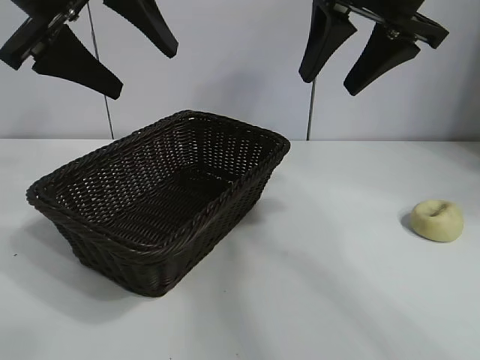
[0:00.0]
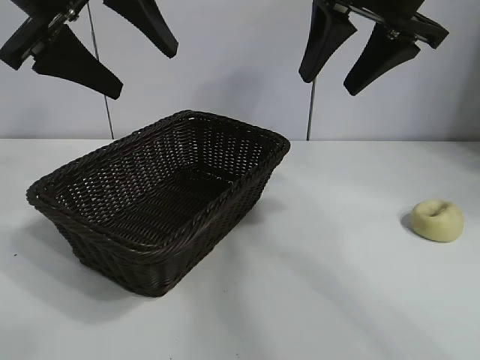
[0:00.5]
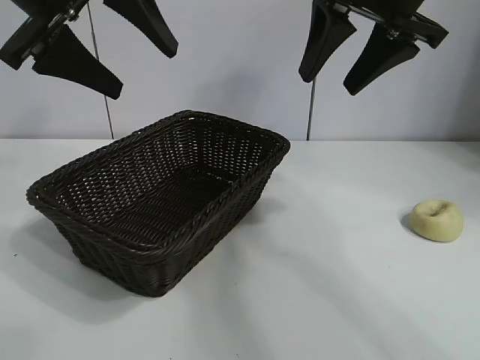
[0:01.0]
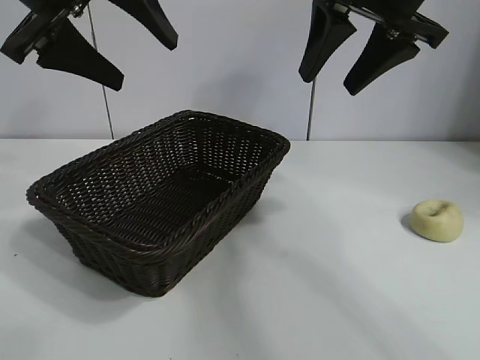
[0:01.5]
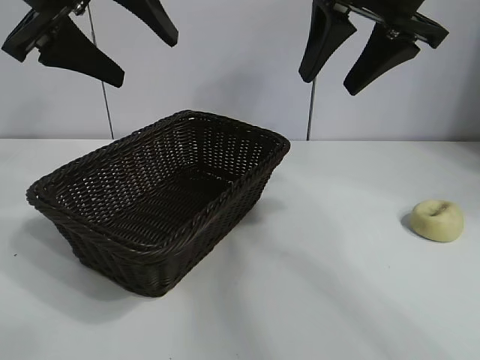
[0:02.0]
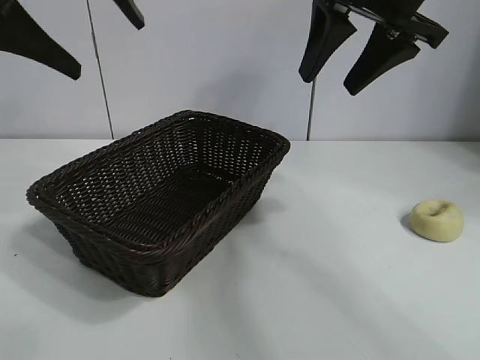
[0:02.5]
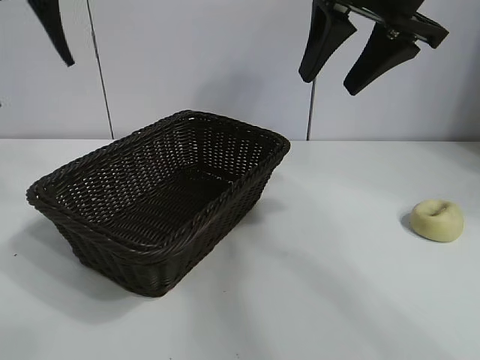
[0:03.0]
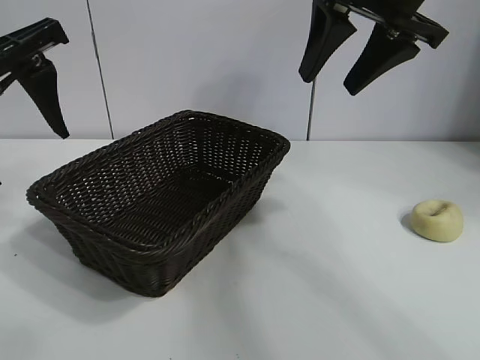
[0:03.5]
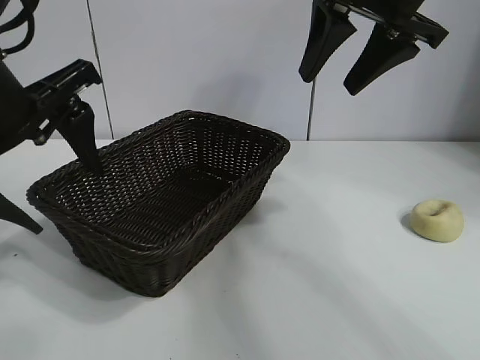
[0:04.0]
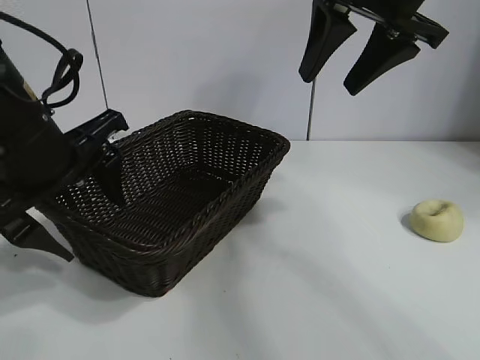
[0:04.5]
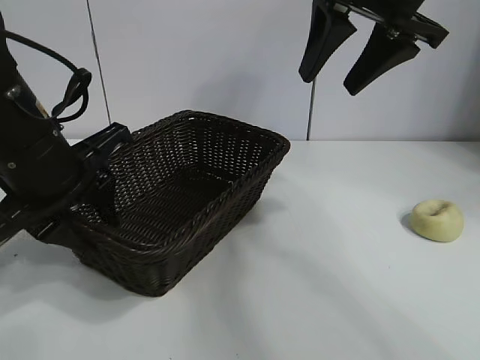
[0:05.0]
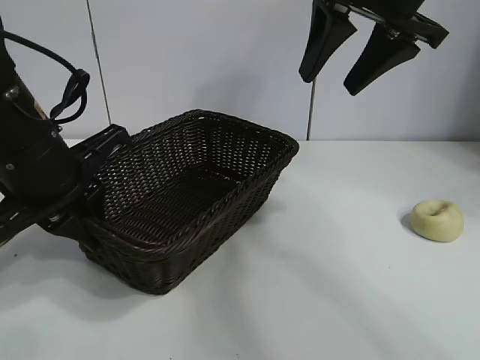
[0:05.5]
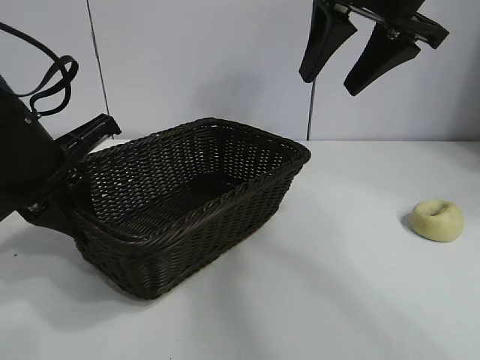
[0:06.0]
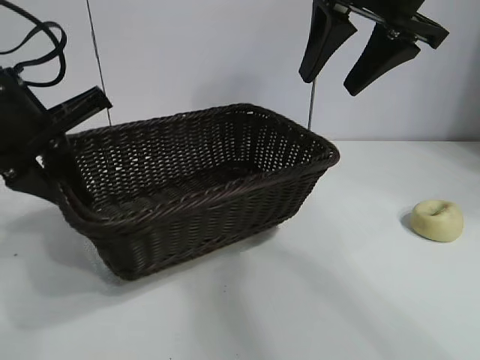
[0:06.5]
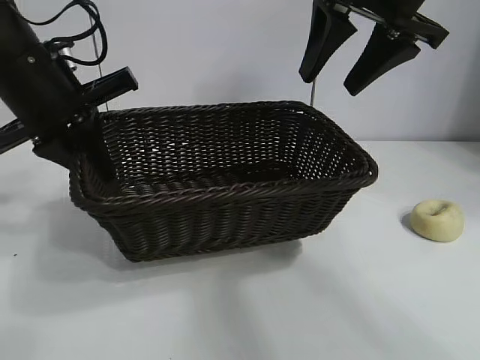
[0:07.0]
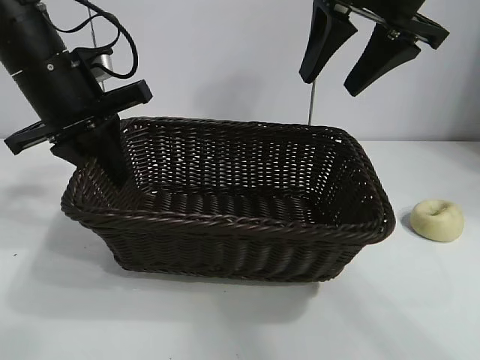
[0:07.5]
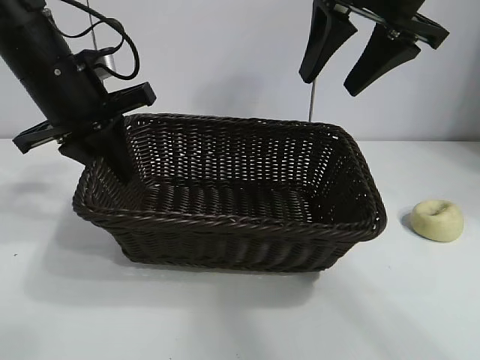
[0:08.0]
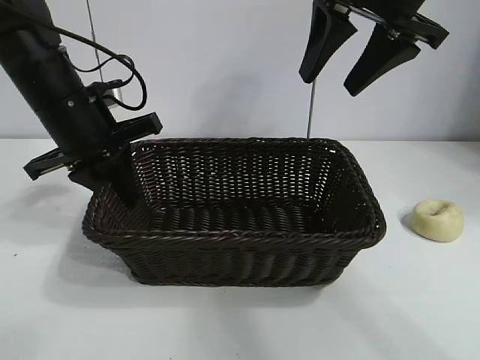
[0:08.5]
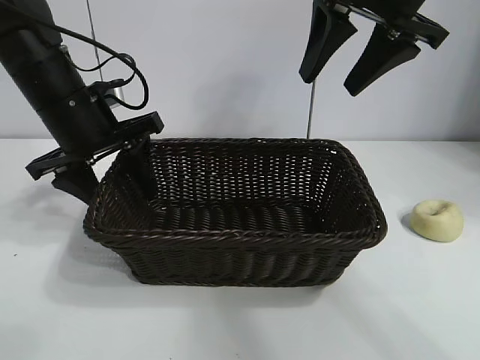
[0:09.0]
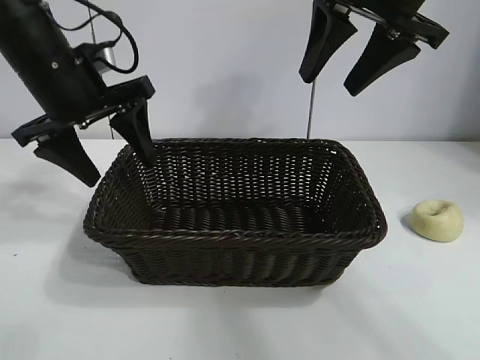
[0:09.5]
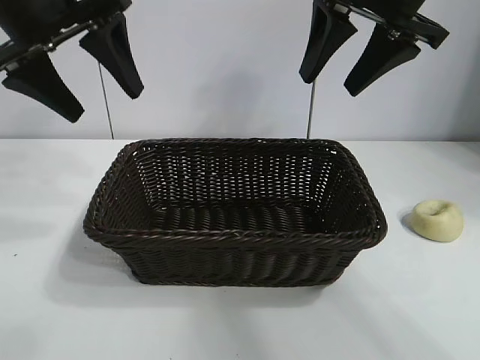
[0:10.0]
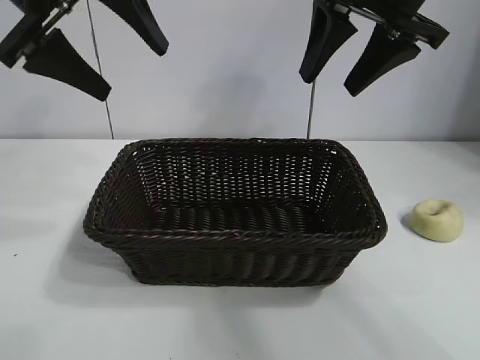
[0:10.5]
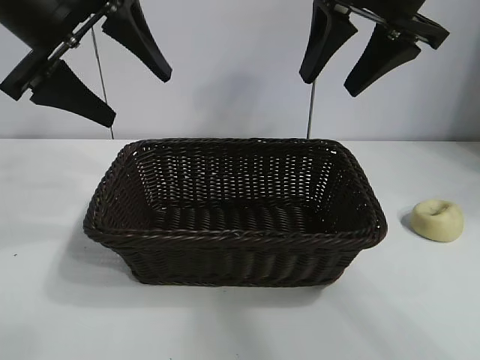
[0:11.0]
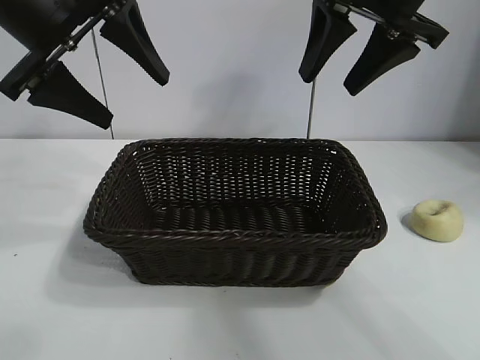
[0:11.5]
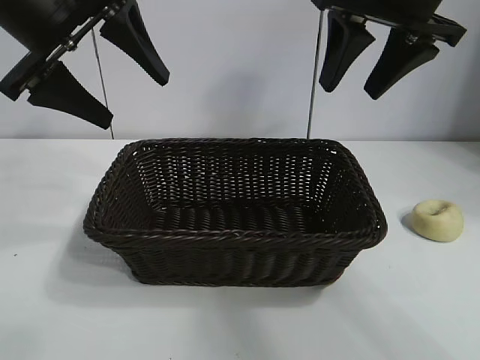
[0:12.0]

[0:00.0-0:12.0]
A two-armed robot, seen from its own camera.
Task of the whole recording: pick up the egg yolk pastry and put it into the basket.
Step, 0:01.5 to 0:05.0: Grasp the basket with left gripper.
Step, 0:05.5 to 0:08.5: Place the basket in the center of view with left gripper.

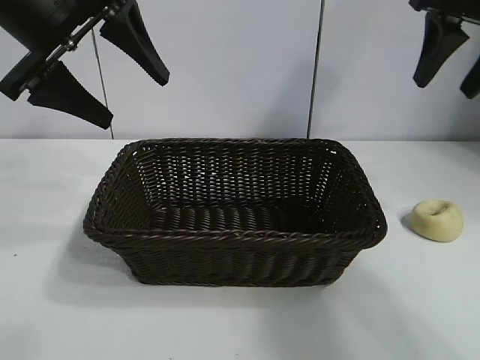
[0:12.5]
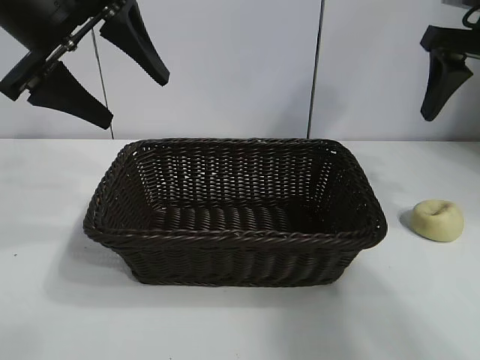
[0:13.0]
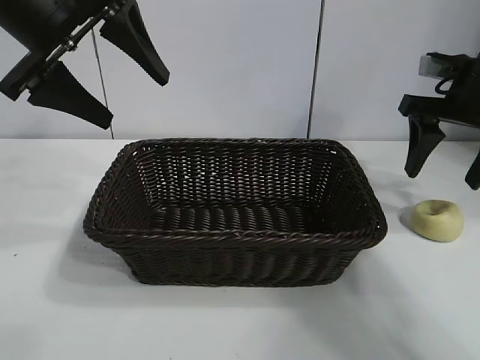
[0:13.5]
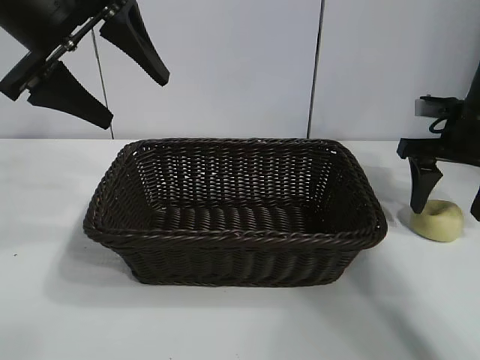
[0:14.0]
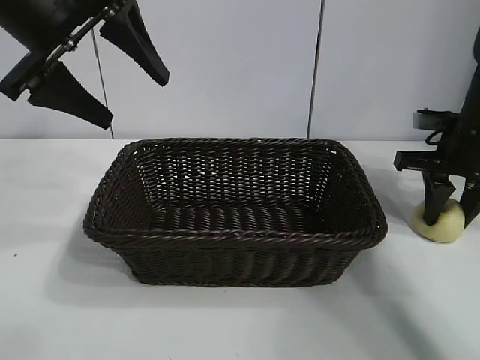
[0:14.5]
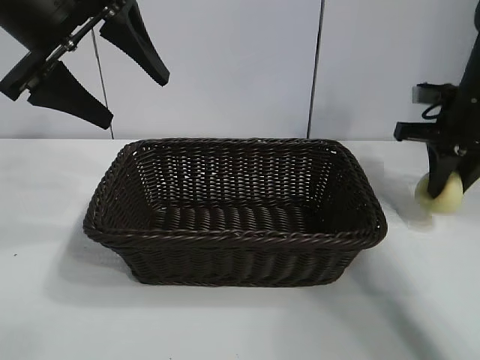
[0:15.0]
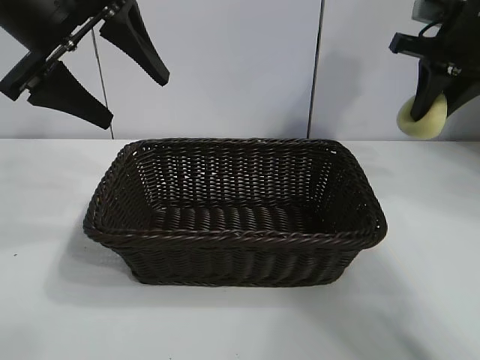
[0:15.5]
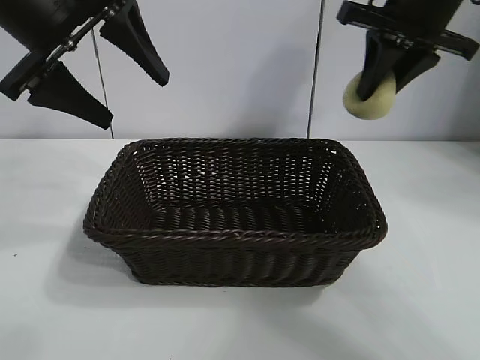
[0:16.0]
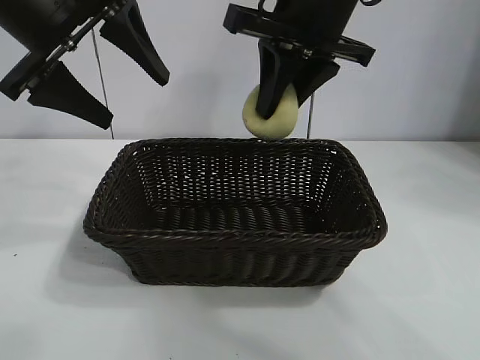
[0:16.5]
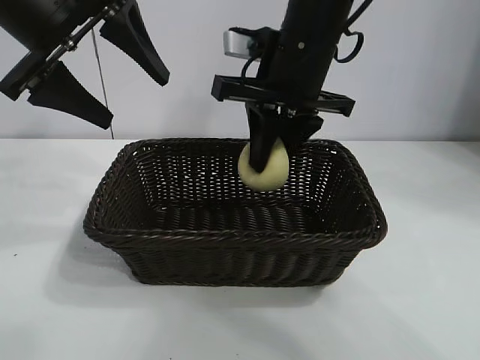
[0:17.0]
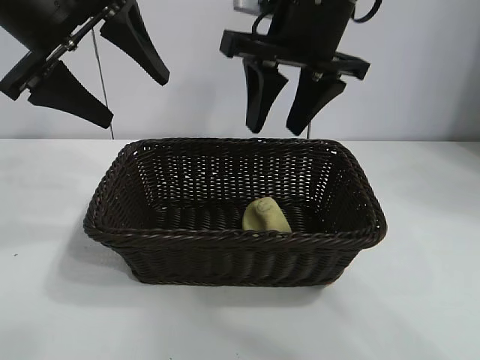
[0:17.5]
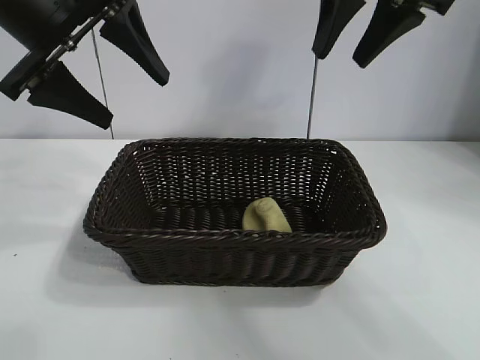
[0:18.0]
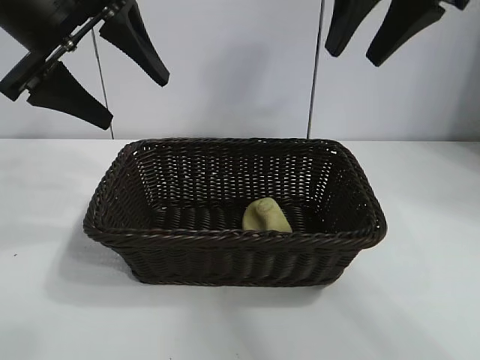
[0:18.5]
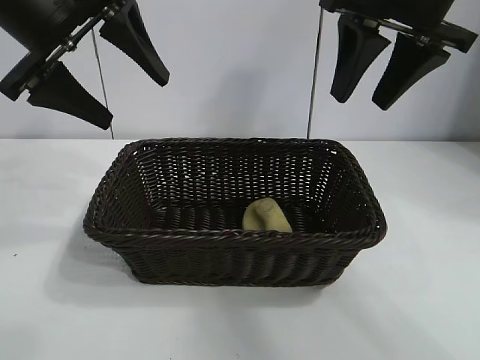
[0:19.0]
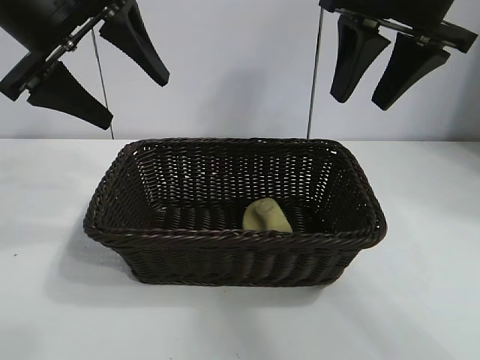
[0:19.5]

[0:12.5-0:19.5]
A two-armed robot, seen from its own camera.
Task of the whole recording: pick up the egg yolk pastry and put it into the basket.
Step, 0:12.5 to 0:14.5: Grasp egg yolk pastry with right gripper.
Step, 0:15.0 to 0:17.0: Place the egg yolk pastry in the basket with right gripper.

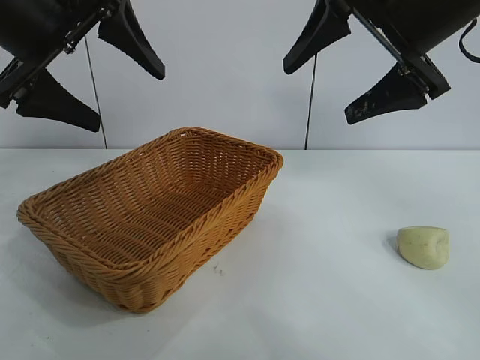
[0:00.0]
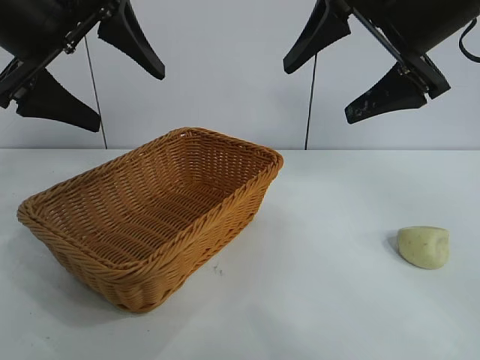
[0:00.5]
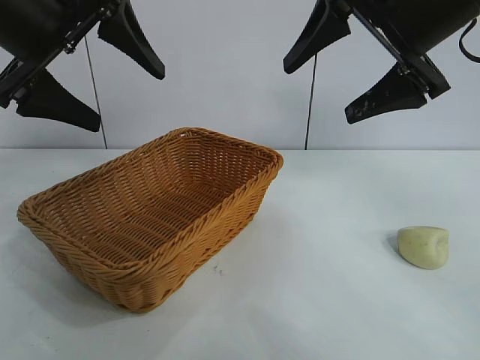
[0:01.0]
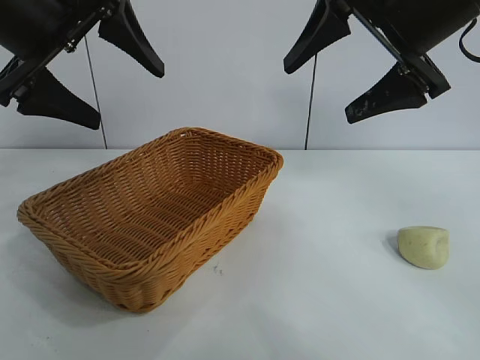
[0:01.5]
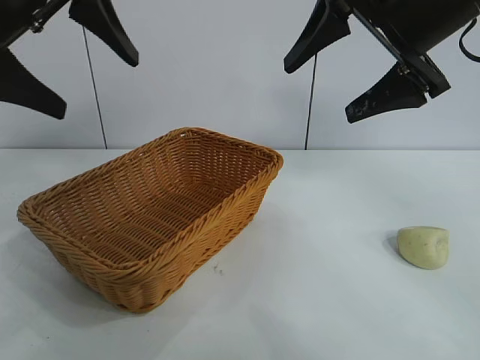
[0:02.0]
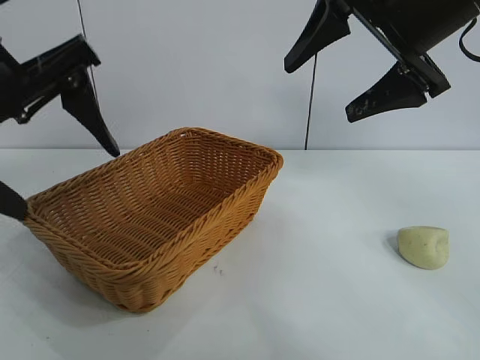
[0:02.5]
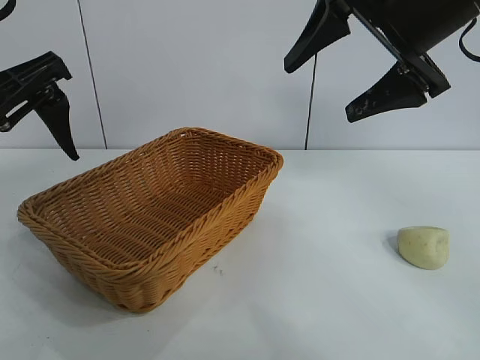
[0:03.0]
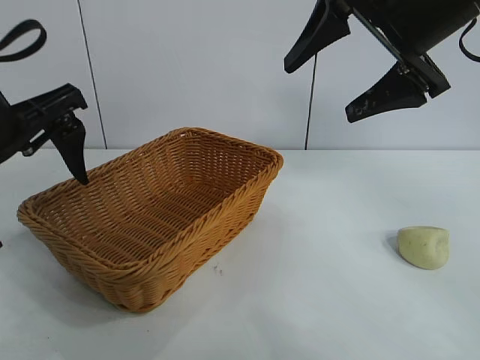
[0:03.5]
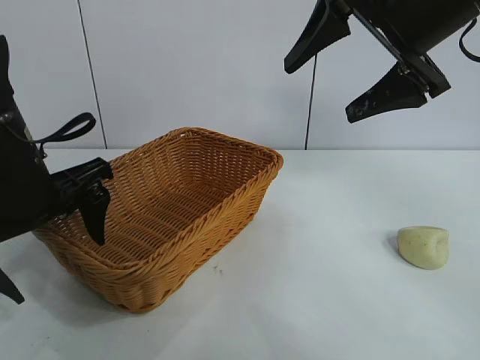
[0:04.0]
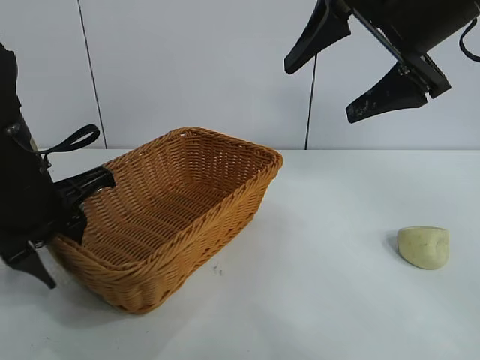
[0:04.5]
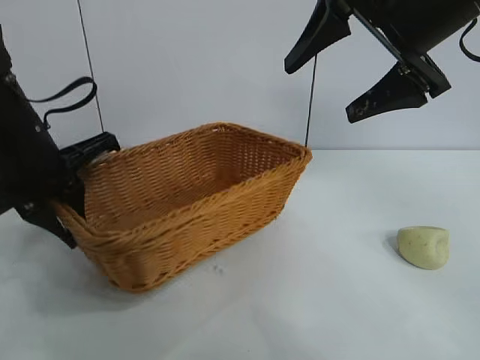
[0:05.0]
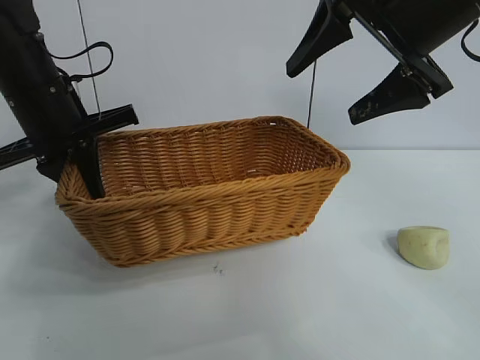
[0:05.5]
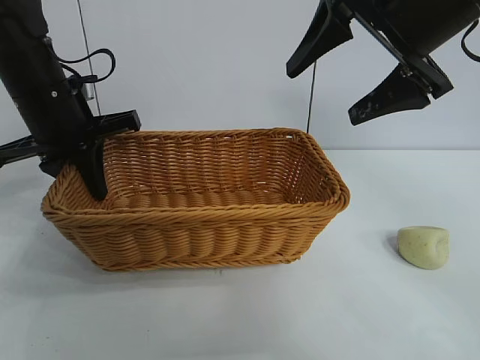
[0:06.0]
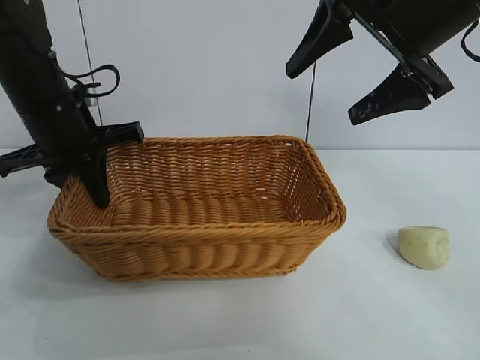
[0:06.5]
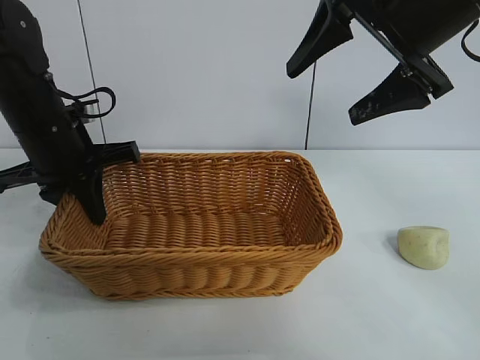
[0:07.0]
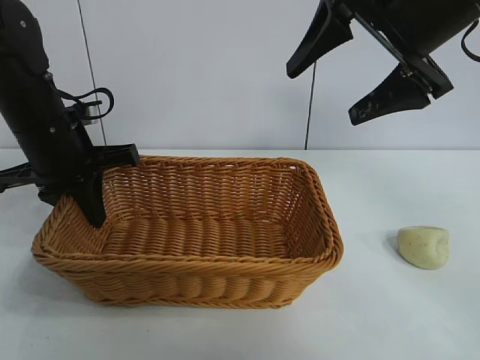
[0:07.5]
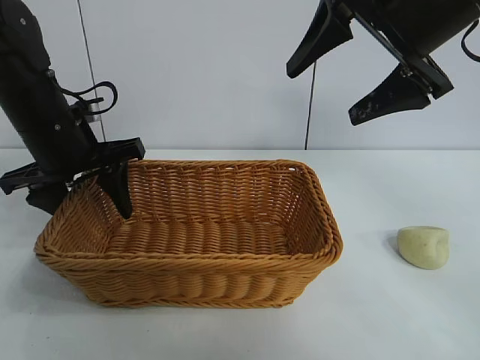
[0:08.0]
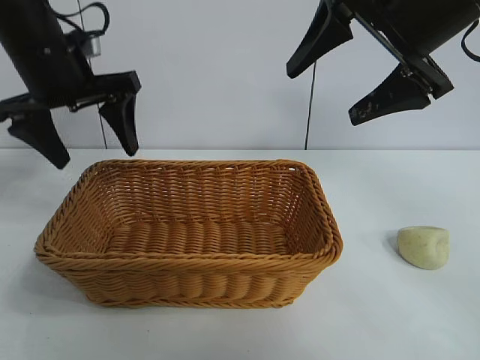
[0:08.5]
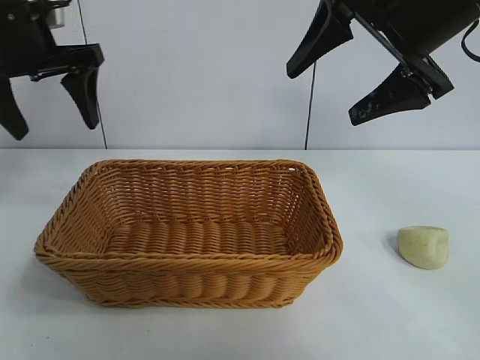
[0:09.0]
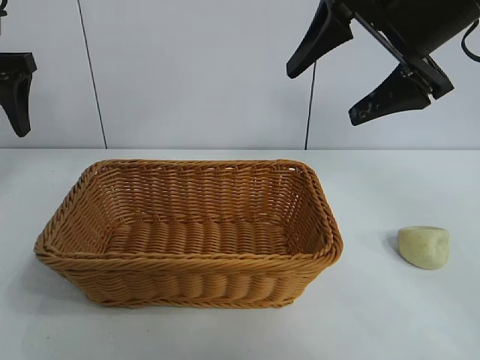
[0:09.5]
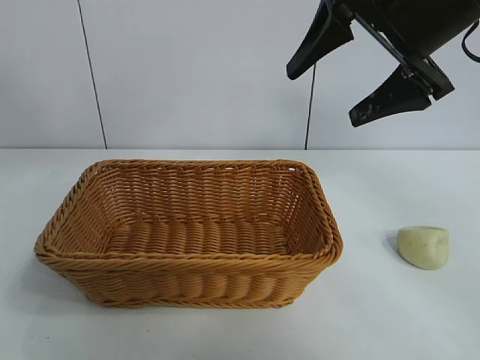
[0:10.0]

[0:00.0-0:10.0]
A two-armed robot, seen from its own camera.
Task of the whole recording: pick up the egg yolk pastry and put it into the basket.
Step, 0:01.5 to 0:04.5: Grasp the basket with left gripper.
Step, 0:05.0 to 0:07.5: Place the basket in the center of view with left gripper.
